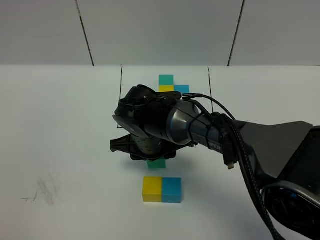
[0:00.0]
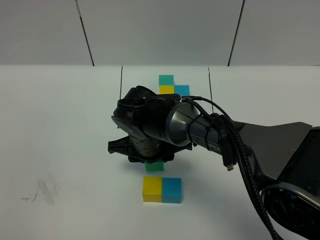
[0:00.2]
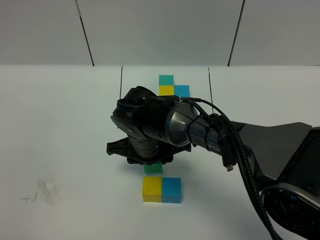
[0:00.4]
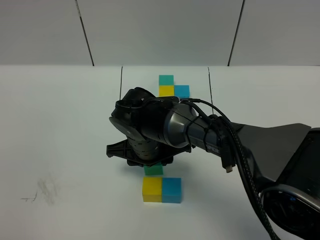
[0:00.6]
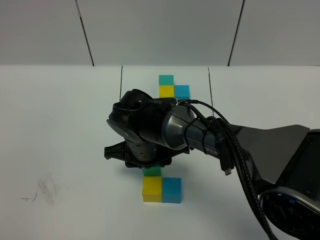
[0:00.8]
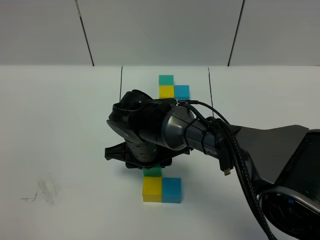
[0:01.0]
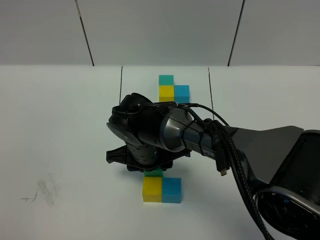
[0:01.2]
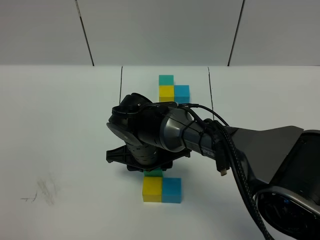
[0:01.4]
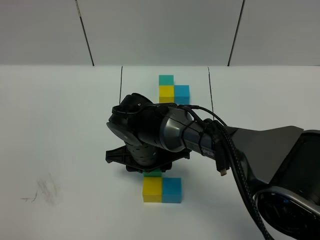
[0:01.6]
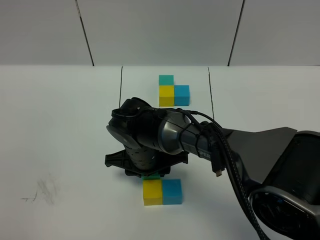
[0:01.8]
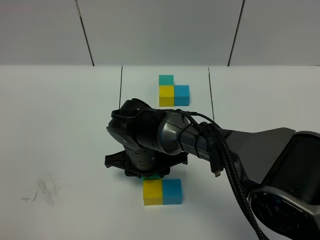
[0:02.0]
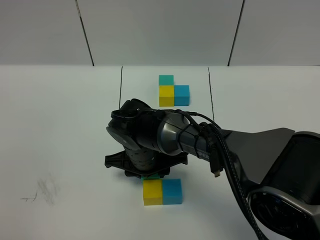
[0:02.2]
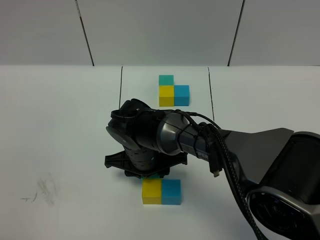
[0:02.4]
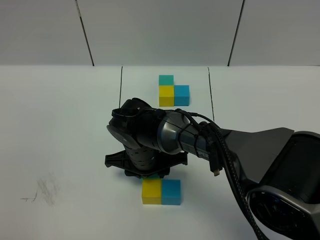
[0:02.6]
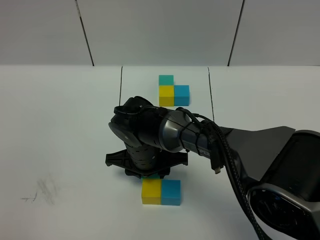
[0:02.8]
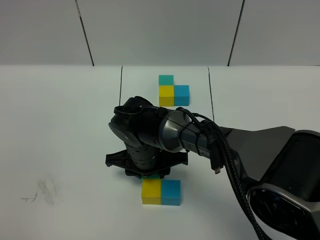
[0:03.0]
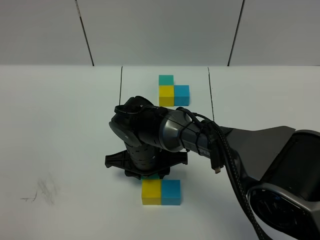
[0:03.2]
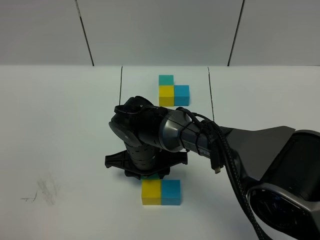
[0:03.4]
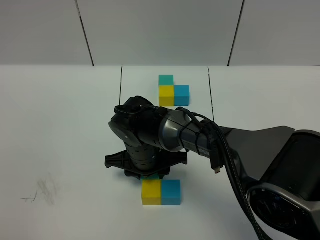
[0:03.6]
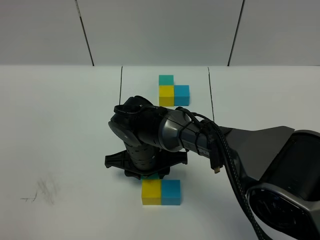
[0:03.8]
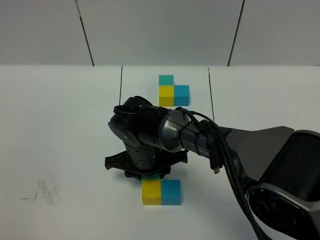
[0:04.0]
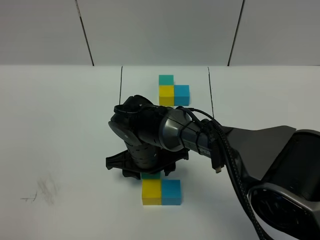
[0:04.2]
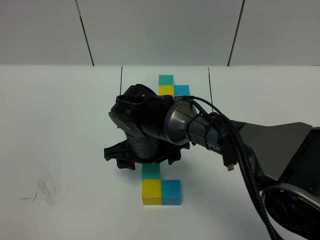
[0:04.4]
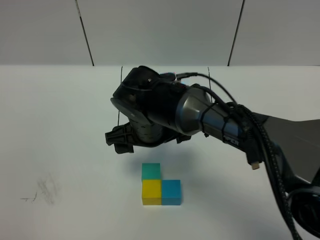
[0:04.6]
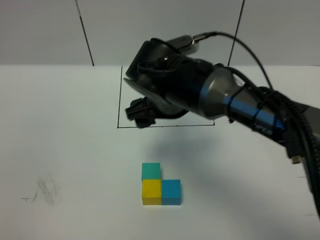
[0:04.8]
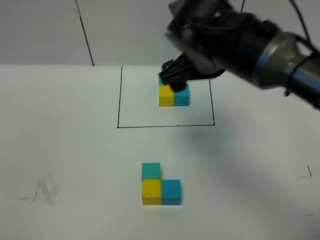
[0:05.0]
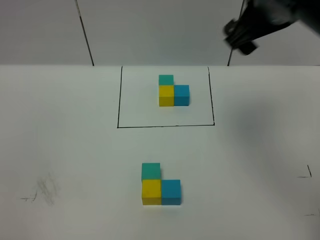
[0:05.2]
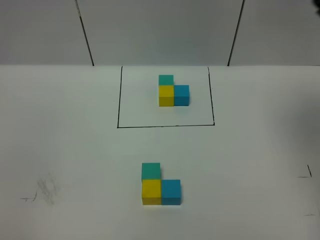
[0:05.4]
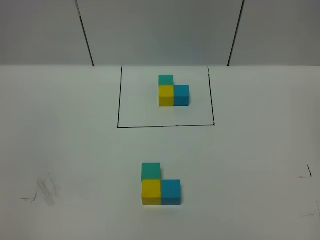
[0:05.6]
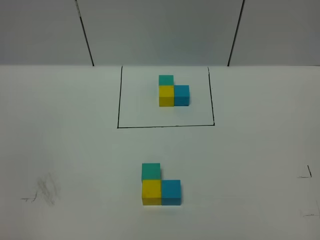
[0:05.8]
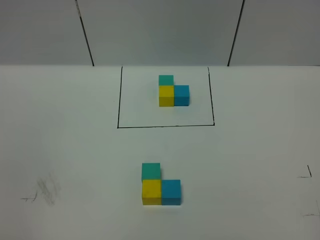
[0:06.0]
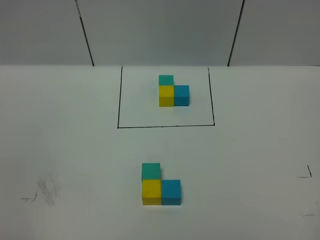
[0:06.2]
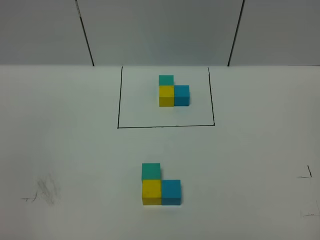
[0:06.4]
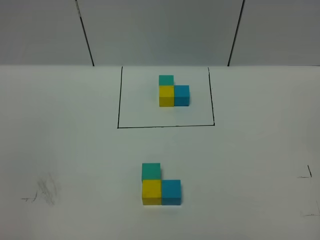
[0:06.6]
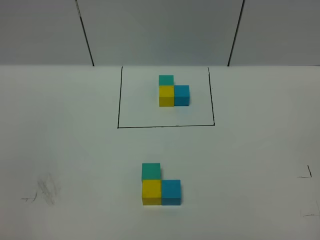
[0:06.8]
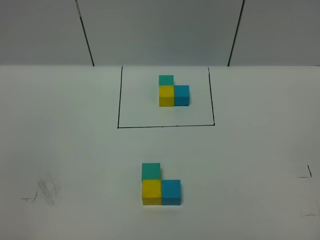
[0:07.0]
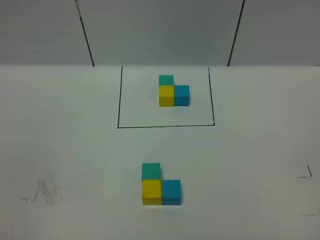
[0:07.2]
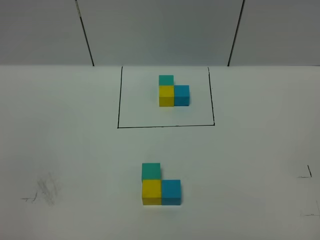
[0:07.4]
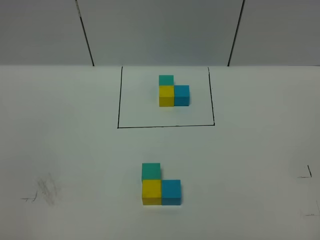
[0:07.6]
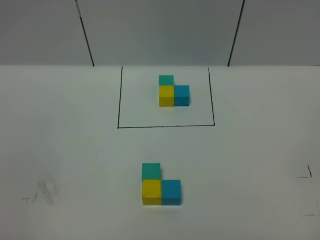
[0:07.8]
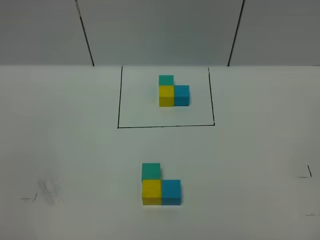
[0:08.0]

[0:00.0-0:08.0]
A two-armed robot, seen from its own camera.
Task of the whole recording: According to the building block template in front, assemble the scattered blocks together.
Step, 0.0 to 4.0 s: Put the green cube on the behind of the yellow cube.
0.0 to 3.2 s: The grippers stay close to where they were, moving slightly.
3.2 to 4.8 s: The right gripper shifts roughly 15 cm upward, and opens its fingers.
4.8 to 6.4 s: The right gripper is displaced backward and to the right by about 50 cm.

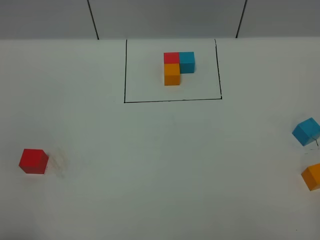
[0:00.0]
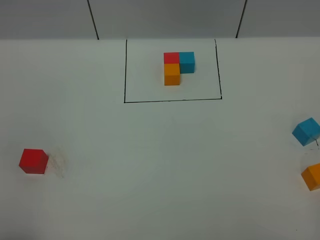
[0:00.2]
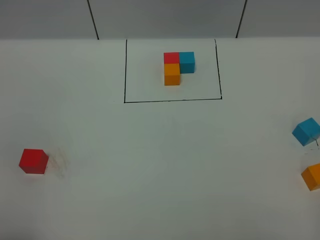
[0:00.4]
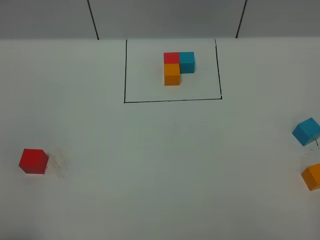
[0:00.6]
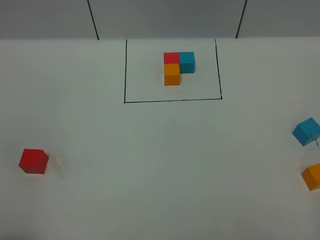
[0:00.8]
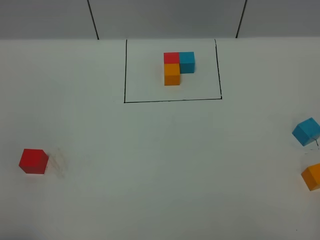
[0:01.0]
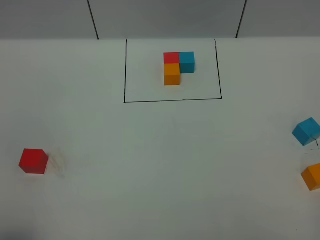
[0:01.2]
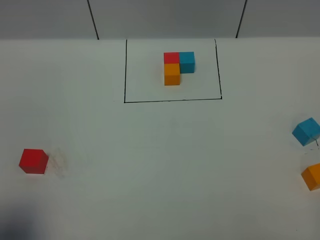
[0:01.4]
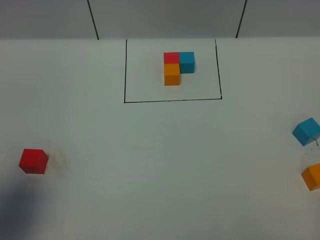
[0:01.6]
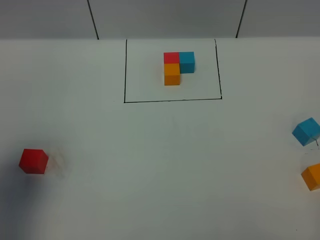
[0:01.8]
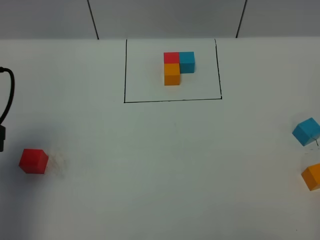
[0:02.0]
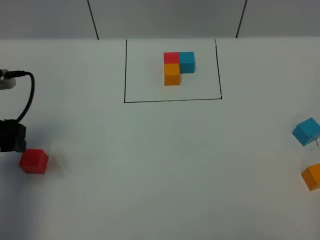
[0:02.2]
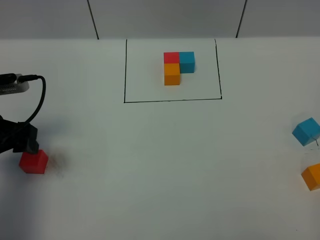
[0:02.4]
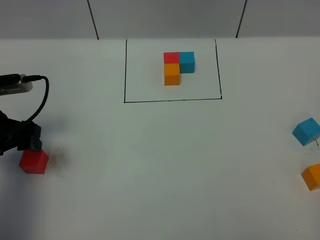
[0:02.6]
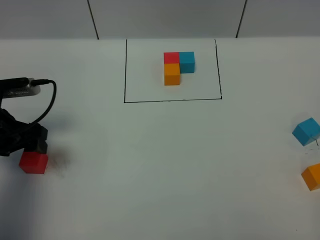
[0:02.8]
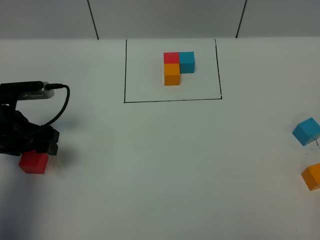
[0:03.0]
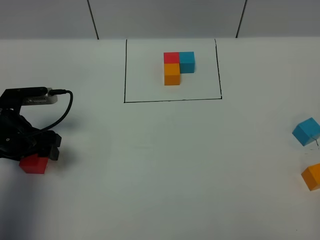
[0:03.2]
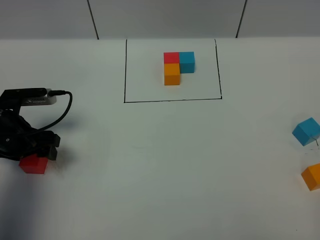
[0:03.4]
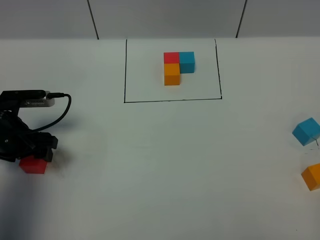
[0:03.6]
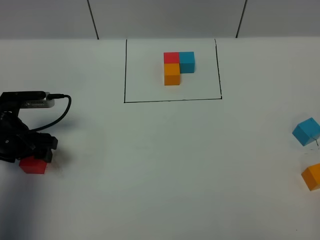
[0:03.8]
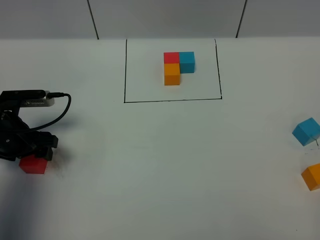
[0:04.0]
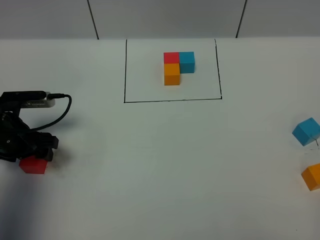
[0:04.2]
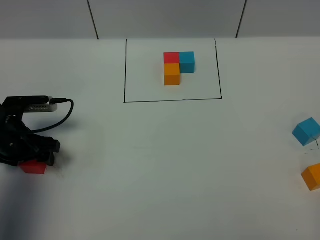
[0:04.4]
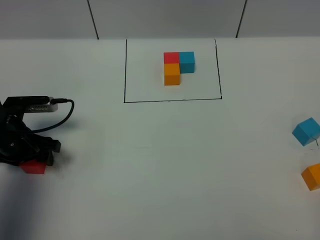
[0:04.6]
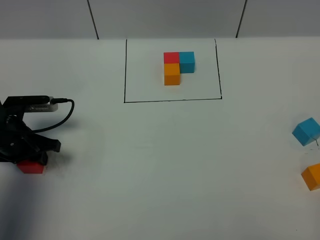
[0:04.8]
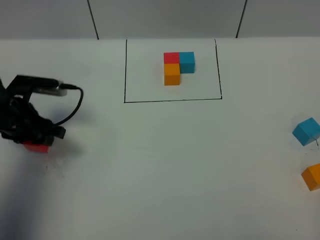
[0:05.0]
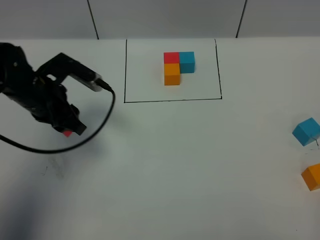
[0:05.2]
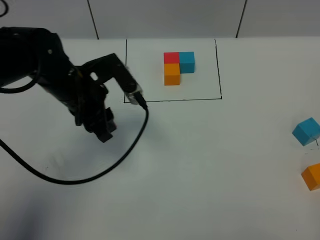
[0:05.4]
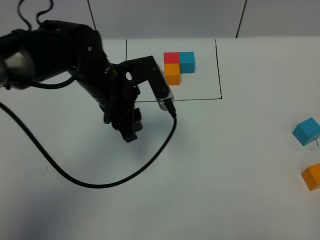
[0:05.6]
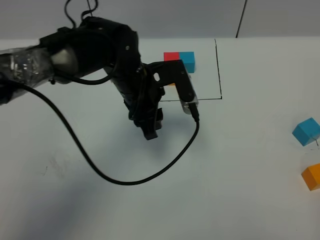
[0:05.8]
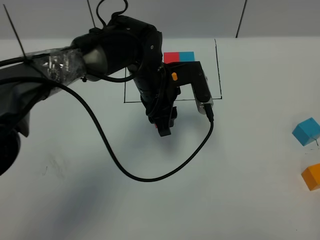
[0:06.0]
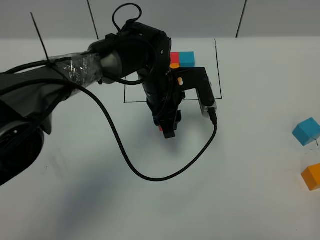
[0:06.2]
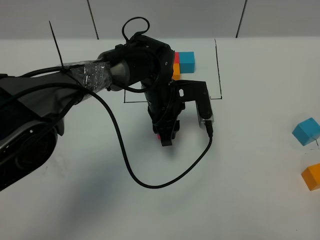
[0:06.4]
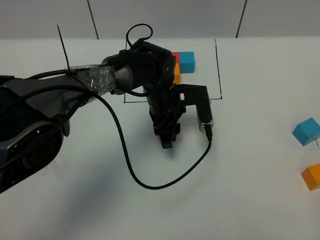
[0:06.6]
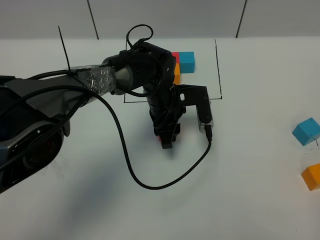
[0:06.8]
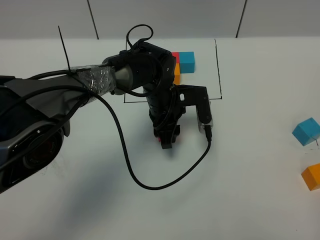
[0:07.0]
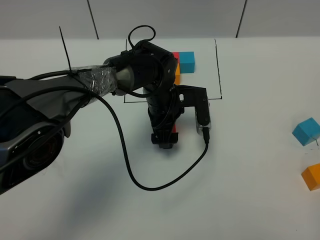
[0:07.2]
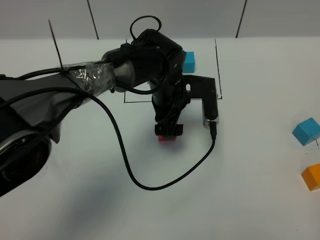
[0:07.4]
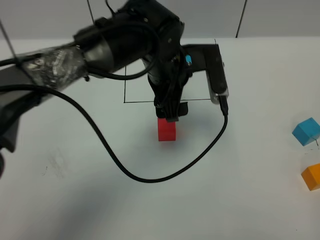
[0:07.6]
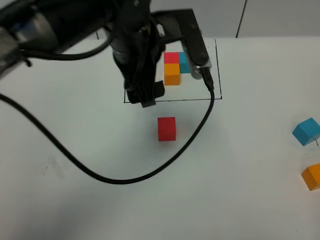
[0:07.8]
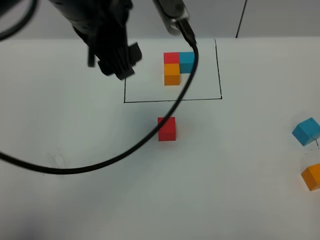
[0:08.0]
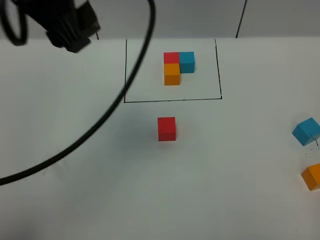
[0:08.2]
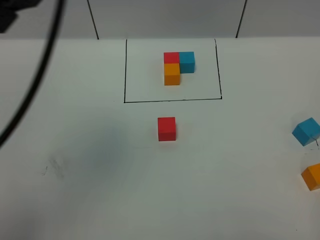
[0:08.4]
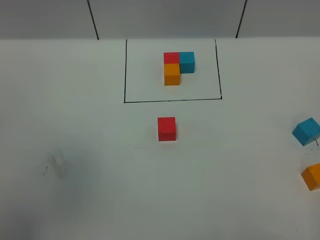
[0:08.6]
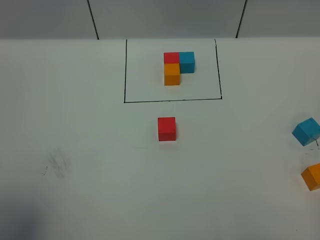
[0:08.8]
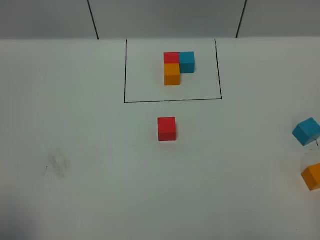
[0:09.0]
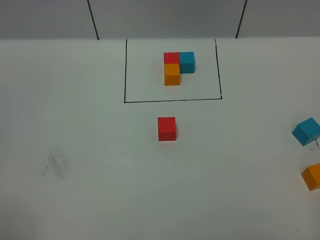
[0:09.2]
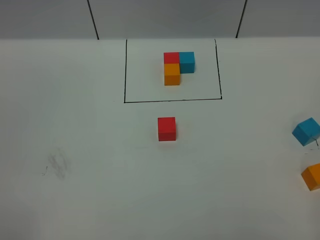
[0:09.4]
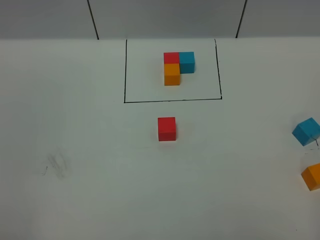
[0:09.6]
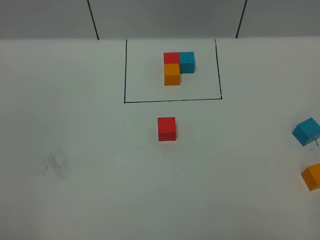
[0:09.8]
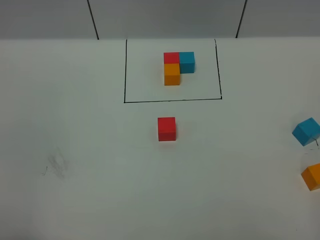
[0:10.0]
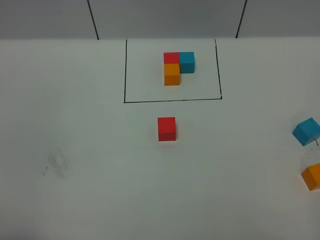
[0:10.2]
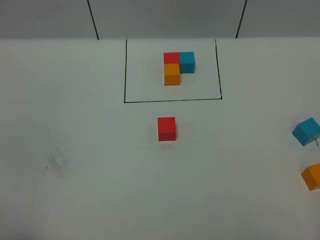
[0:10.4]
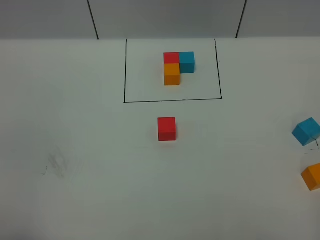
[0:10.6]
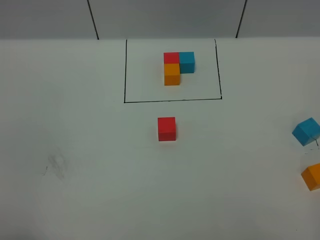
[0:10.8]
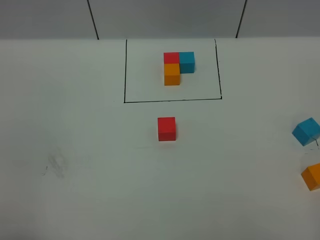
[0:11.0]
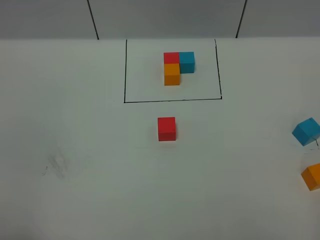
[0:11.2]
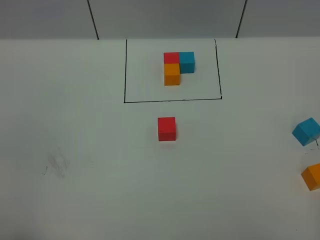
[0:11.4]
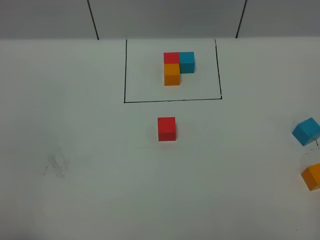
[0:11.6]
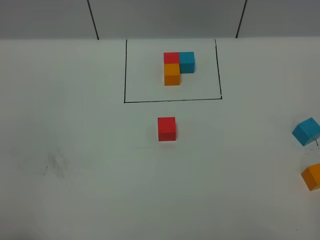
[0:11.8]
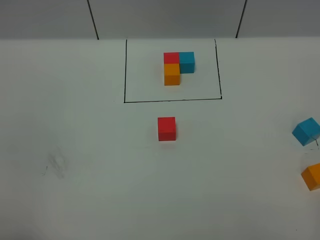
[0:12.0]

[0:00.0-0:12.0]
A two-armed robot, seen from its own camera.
Task of the whole recording: According to the building block template in front, assemble the scattered blocks together.
Step, 2.0 to 7.6 s: Put the red cube in the center of the table.
0.0 to 1.6 s: The left gripper goes roughly 15 cm forward.
1.6 to 3.0 s: The left gripper is displaced forward and downward by about 25 cm.
3.0 to 4.4 s: The grippers stay close to where they were, moving slightly.
4.4 to 6.0 s: The left gripper moves to the right, approximately 30 cm, and closes up.
6.0 to 7.6 s: The left gripper travels upward by roughly 10 cm, and opens its fingers.
7.6 to 9.0 s: The left gripper is displaced backward, to the left and upward by some 50 cm.
10.4 to 12.0 s: Both grippers stay about where they are.

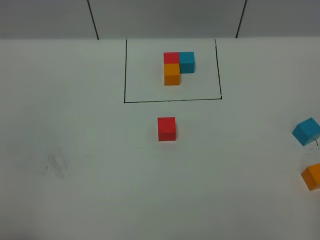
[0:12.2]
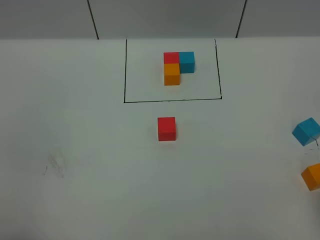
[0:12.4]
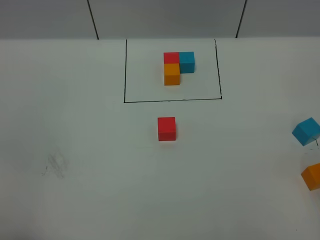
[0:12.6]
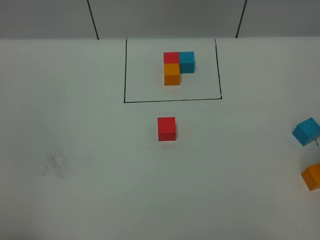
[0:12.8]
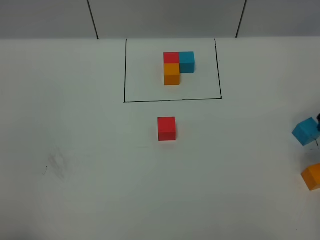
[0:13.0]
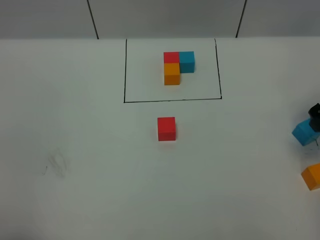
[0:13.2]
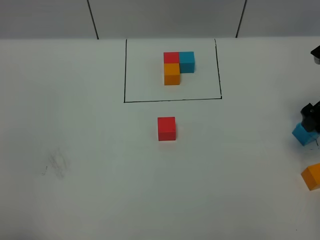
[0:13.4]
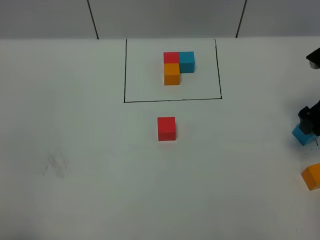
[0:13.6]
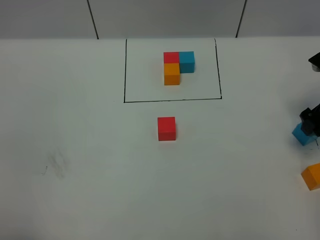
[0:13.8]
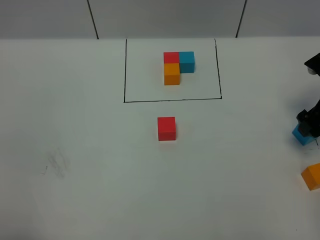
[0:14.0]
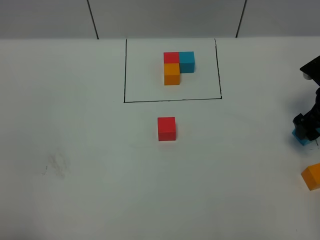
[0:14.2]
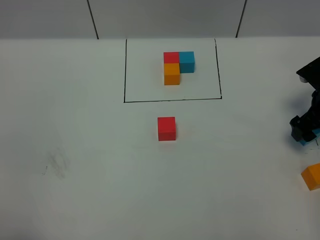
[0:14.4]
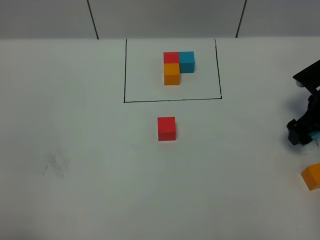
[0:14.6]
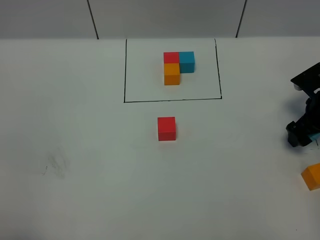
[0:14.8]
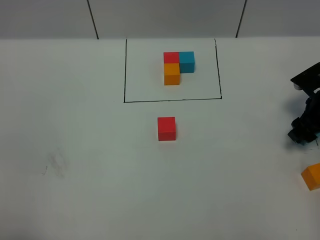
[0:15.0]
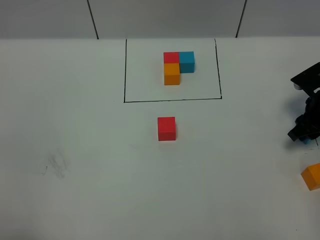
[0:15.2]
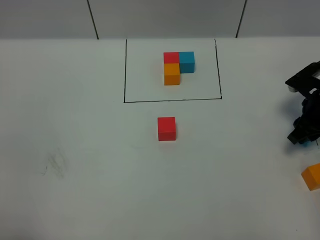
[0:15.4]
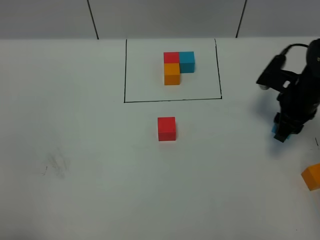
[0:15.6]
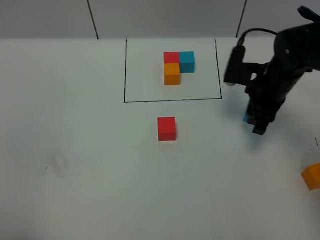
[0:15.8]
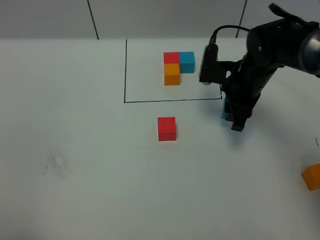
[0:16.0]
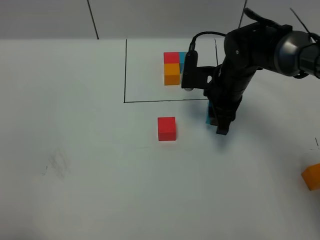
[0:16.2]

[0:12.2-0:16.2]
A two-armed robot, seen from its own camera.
Task of the whole recording: According to the building block template in front, assemble the scattered blocks together.
12.2 to 13.6 s: The right gripper shifts some 30 cm forward, and opens.
13.6 to 14.8 s: The right gripper goes roughly 10 cm downward.
14.8 to 16.2 s: The right gripper heads to the left, covering some 20 cm, and closes.
